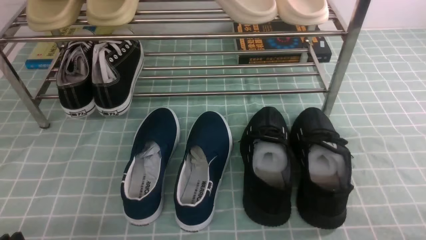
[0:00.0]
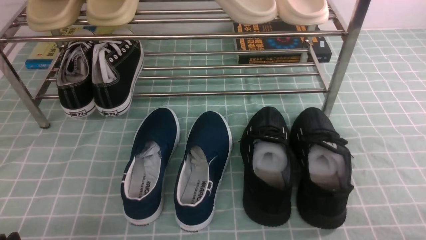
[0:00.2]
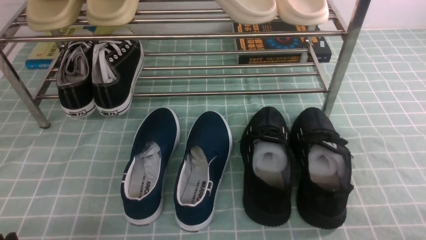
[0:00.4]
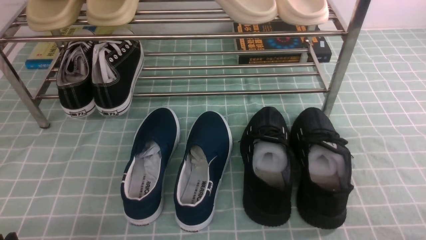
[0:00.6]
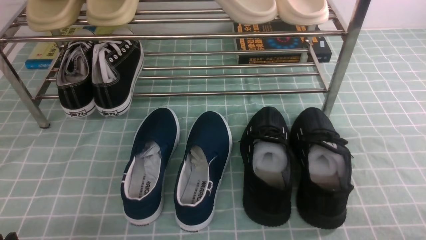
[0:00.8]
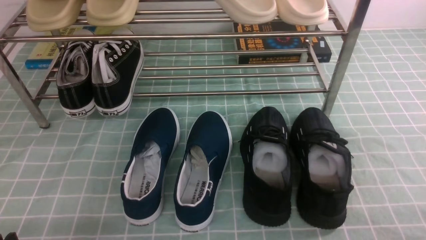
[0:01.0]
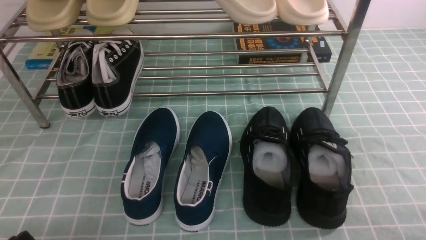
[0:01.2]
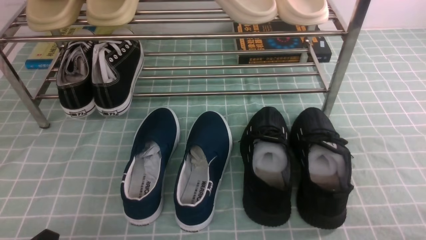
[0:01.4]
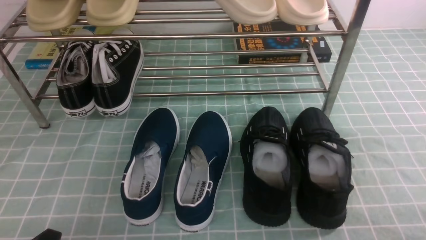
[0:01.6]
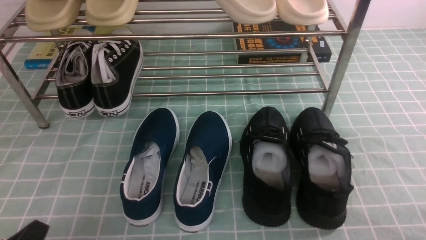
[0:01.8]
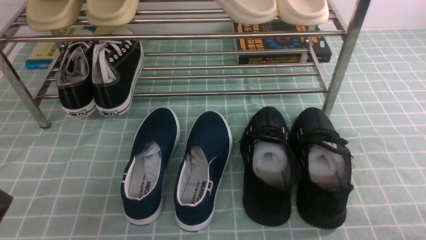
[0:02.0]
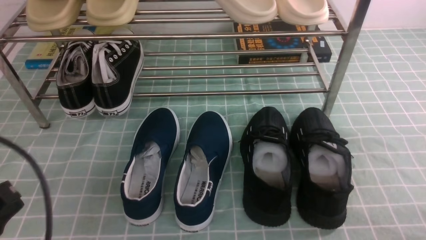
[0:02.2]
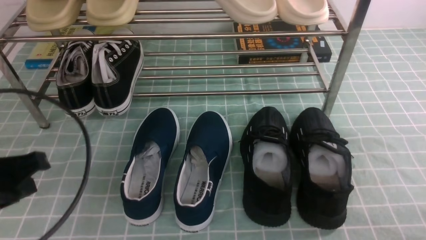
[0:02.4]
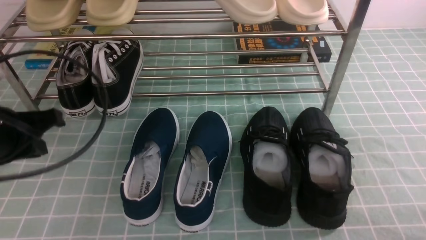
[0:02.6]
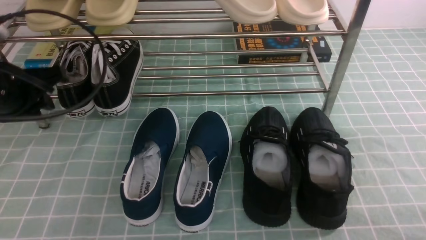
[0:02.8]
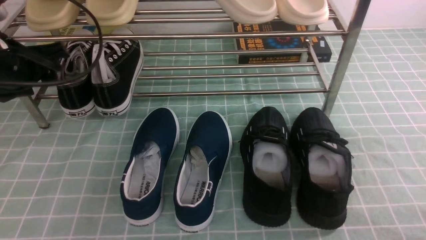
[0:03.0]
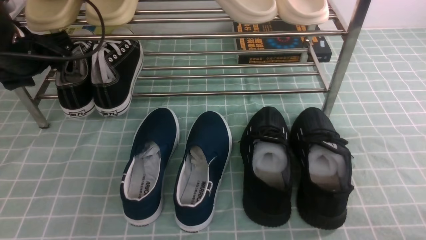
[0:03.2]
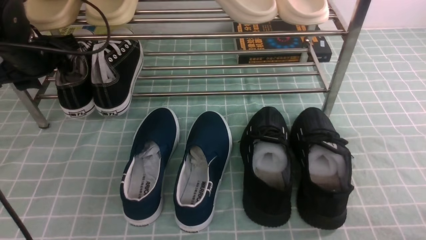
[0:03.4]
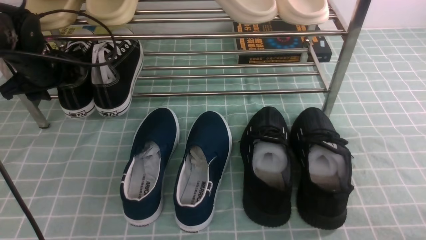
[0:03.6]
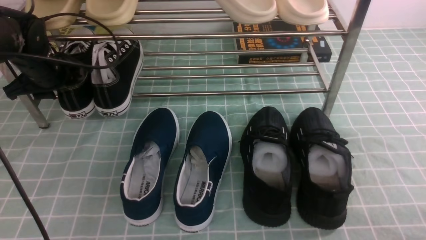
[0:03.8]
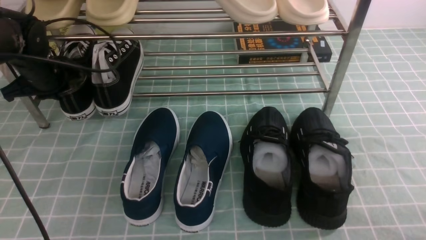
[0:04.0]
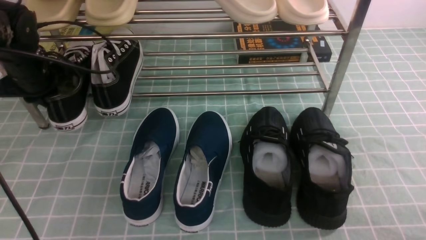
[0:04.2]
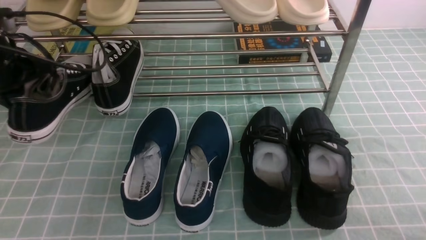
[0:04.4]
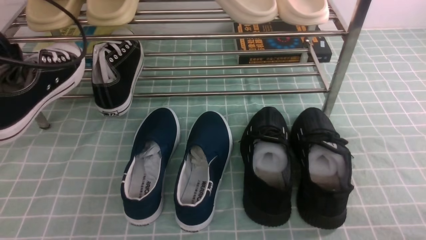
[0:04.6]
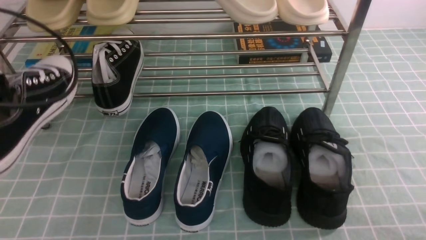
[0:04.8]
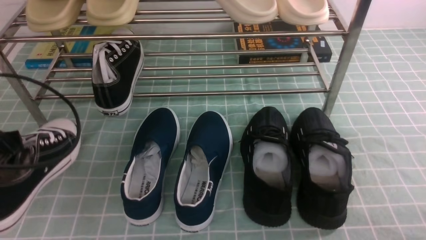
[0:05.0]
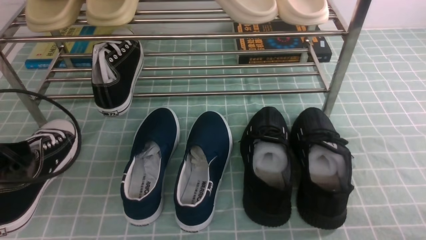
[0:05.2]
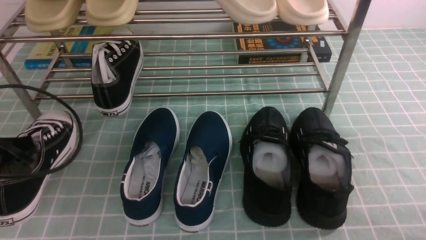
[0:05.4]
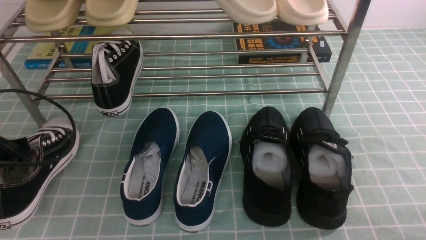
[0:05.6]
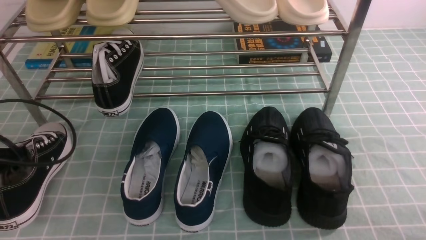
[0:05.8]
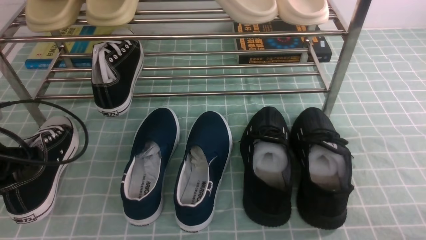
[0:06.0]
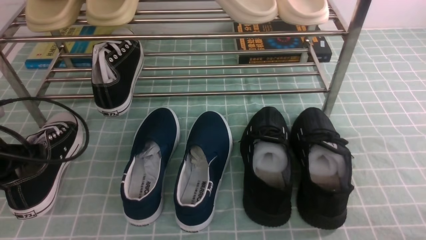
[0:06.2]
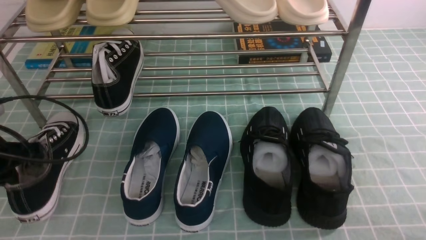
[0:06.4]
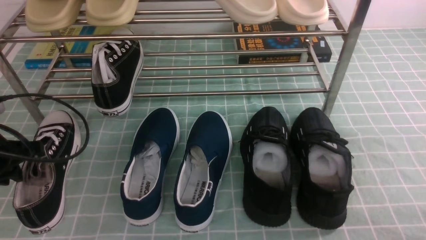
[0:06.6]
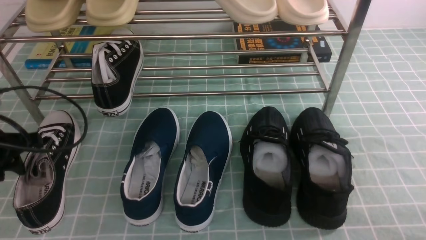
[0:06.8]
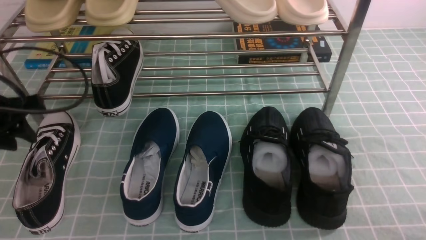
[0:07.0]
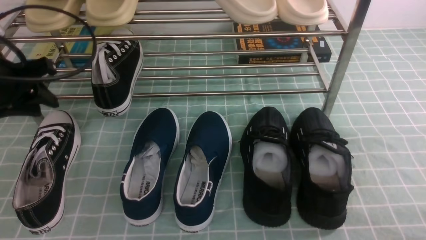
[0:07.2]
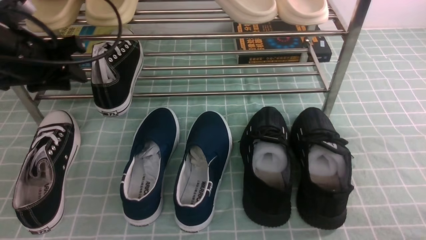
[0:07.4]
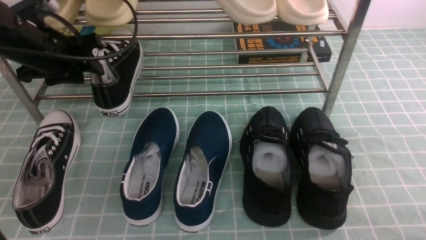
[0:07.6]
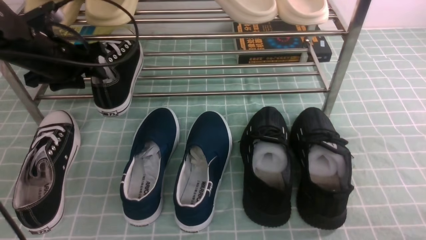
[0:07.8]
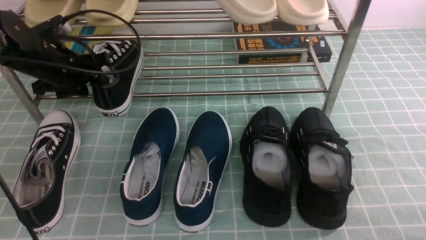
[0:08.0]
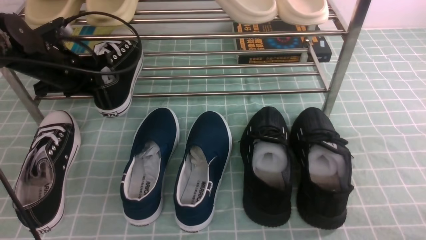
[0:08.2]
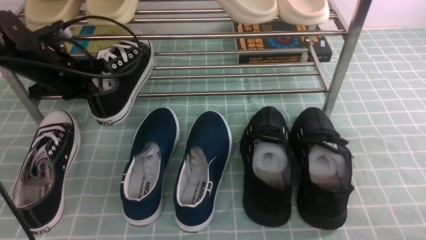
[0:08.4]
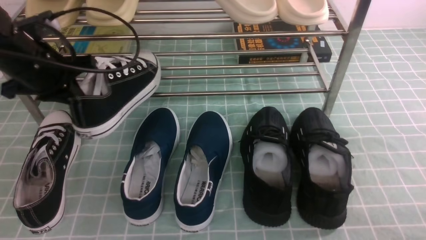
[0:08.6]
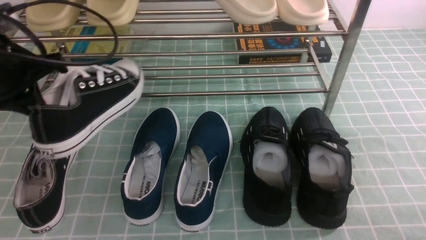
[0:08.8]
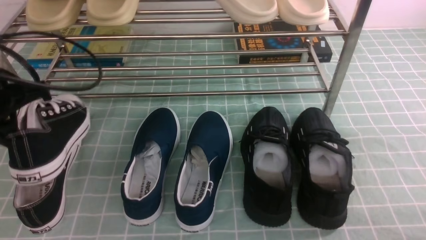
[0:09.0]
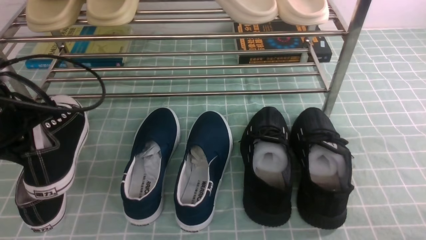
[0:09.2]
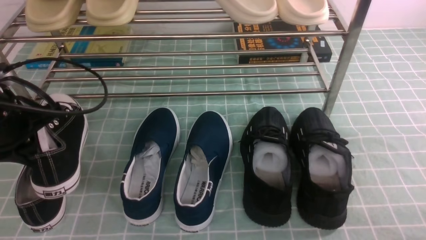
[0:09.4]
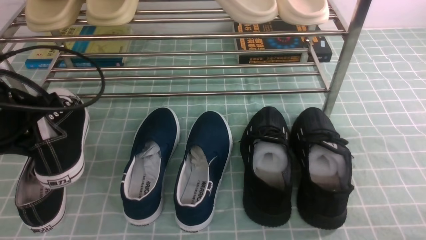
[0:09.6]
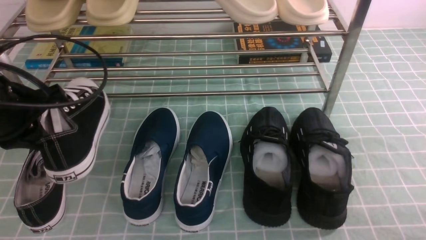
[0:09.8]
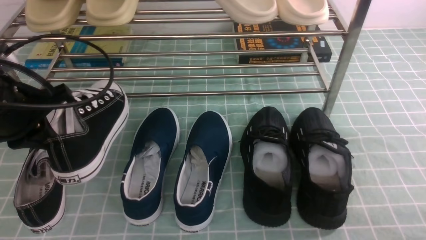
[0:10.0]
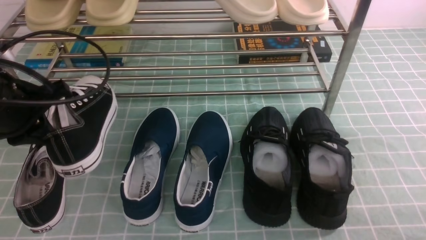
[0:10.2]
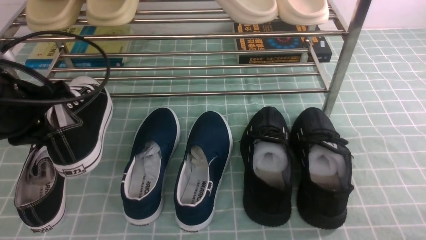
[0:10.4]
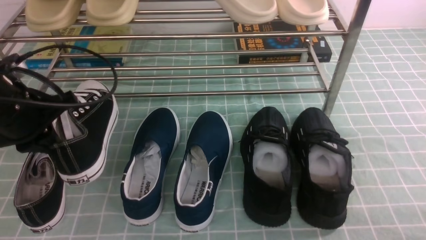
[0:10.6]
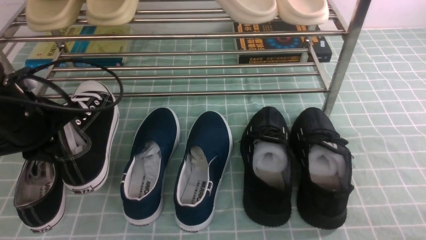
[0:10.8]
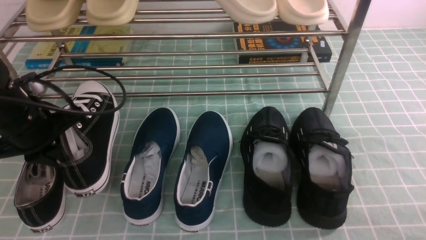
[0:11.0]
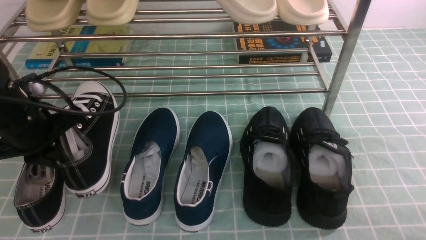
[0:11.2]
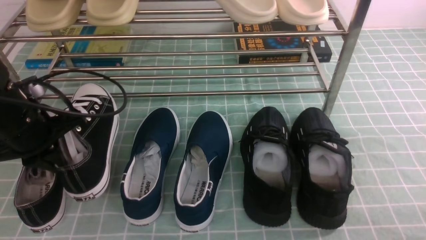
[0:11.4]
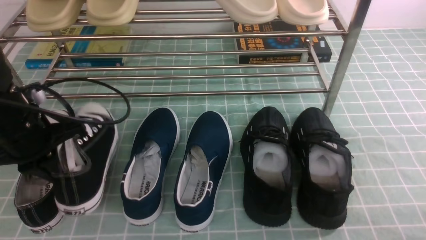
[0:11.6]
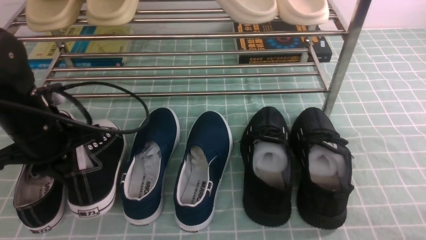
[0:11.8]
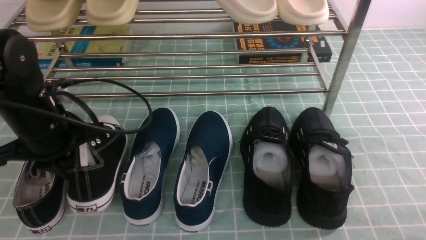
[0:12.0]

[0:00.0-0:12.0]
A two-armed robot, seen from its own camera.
Step, 0:00.0 to 0:03.8: use the left arm to clamp a shoe on the left side of the shoe rack.
Step, 0:04.0 to 0:06.8: Use your left arm to remove the clamped shoe from the shoe rack and put it down.
Step, 0:07.0 to 0:08.2: use the left arm to clamp a shoe on the left side of the shoe rack.
0:01.6 to 0:03.0: The left gripper is displaced forward and upward by approximately 30 cm, and closes, then opens again.
0:03.0 to 0:04.4: The left gripper goes about 5 cm forward, and closes up.
0:04.4 to 0:06.0: The left gripper moves backward and downward, roughly 15 cm.
0:06.0 to 0:07.6: The left gripper moves forward, upward and to the right, about 15 cm, and opens its fingers.
0:07.6 to 0:09.0: The left gripper goes roughly 5 cm backward, and closes.
0:09.0 to 0:10.4: The grippers move only a little.
0:10.4 to 0:12.0: The left gripper moves approximately 5 cm.

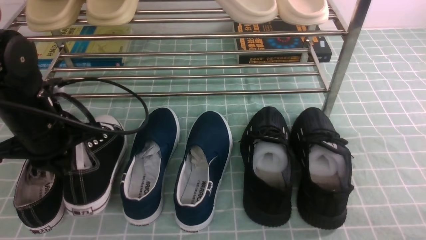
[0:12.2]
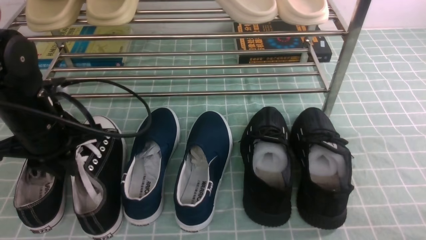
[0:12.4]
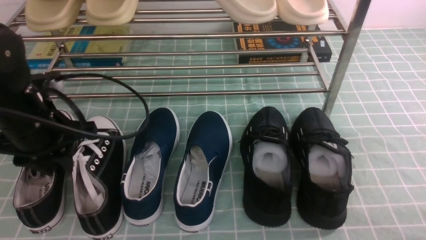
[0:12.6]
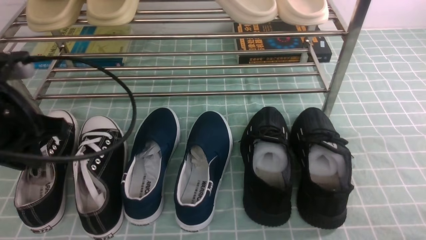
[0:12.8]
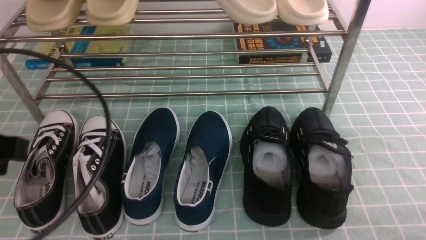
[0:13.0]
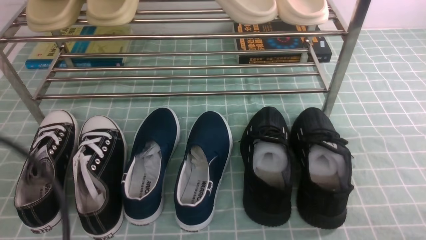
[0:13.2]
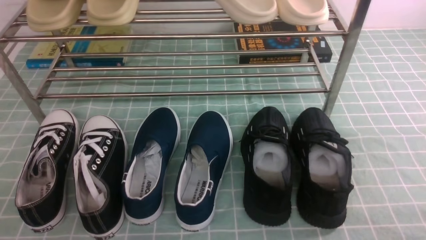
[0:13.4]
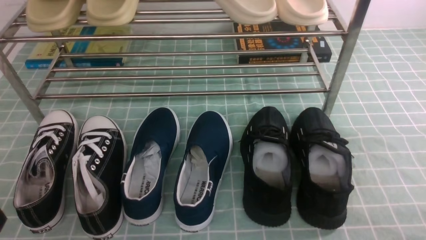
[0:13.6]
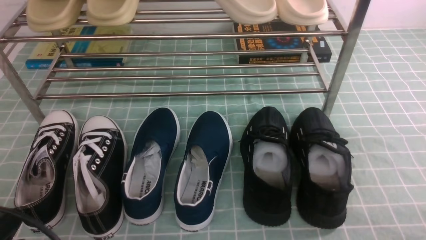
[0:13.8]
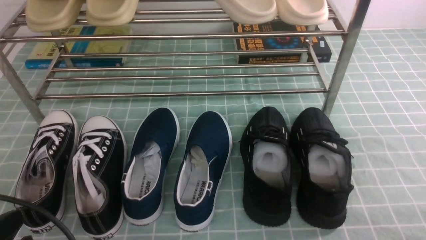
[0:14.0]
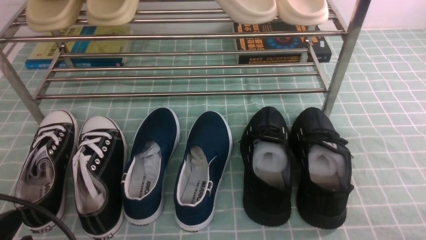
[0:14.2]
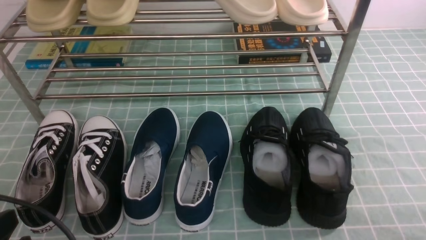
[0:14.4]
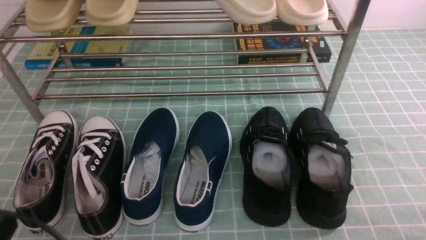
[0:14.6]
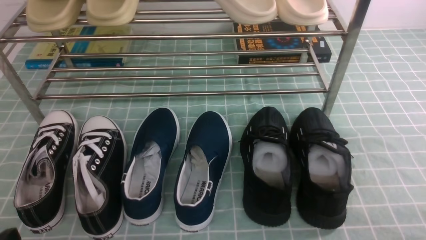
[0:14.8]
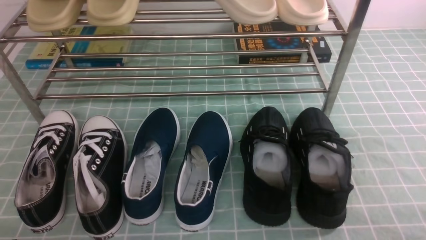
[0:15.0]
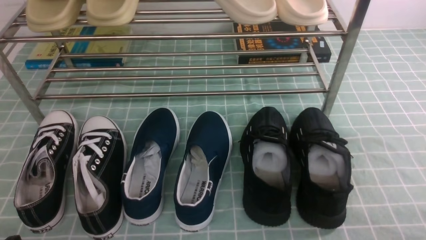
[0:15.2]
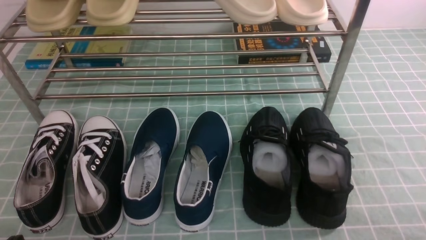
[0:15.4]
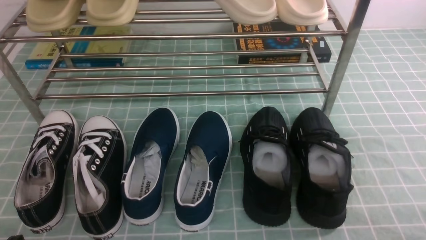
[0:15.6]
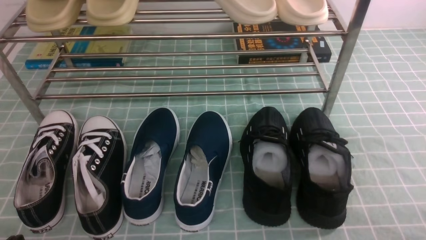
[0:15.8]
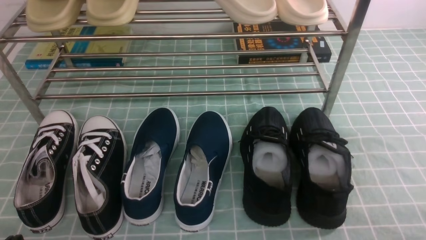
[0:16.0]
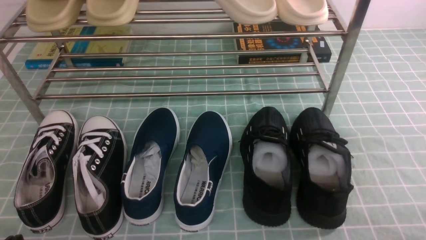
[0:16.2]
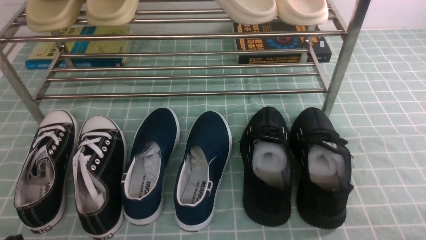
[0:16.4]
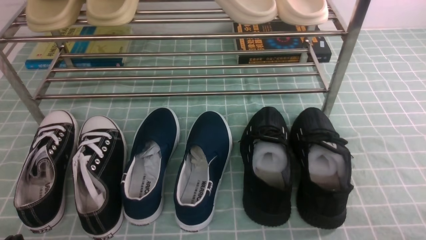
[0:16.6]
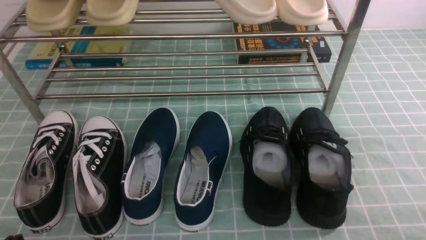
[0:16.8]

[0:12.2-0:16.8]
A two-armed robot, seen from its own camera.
0:12.2 to 0:13.8: The left gripper travels backward by roughly 25 cm.
0:13.8 to 0:15.2: The left gripper heads downward, covering some 10 cm.
0:15.2 to 0:16.8: Neither gripper changes place.
